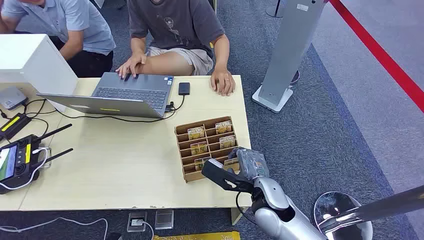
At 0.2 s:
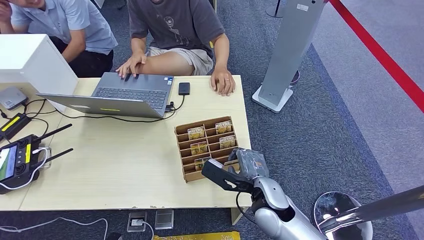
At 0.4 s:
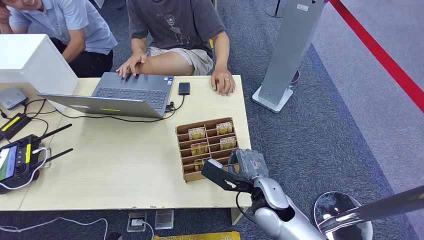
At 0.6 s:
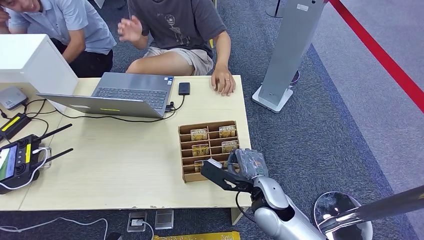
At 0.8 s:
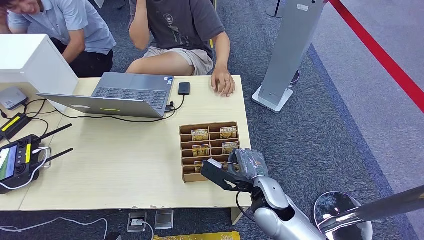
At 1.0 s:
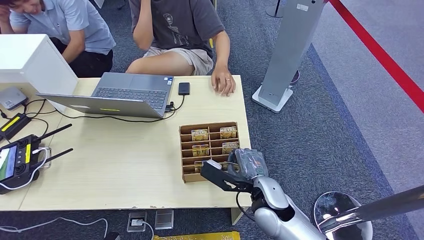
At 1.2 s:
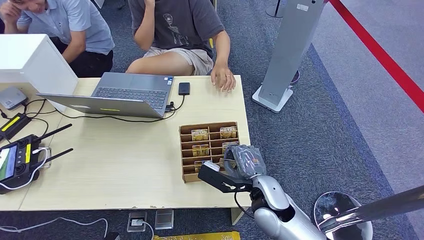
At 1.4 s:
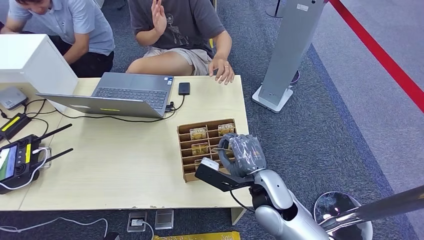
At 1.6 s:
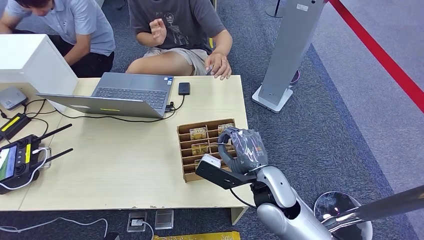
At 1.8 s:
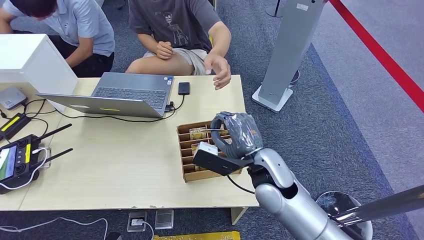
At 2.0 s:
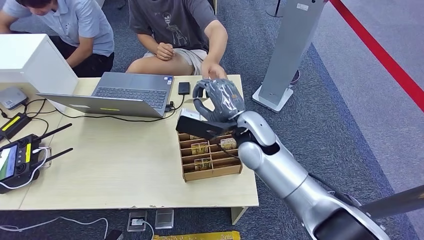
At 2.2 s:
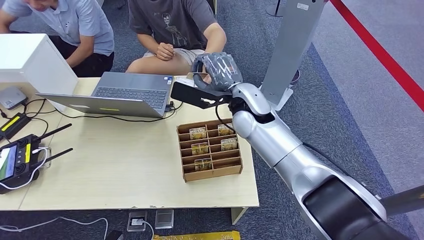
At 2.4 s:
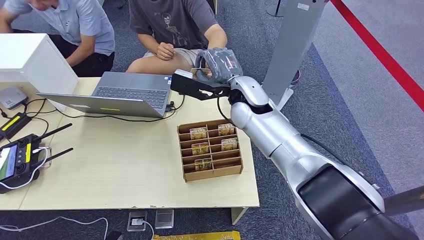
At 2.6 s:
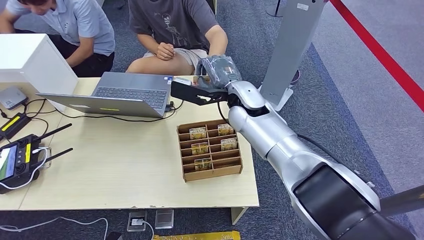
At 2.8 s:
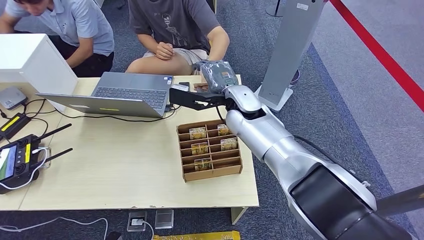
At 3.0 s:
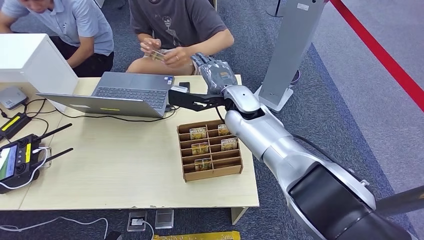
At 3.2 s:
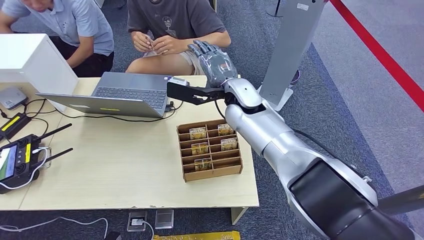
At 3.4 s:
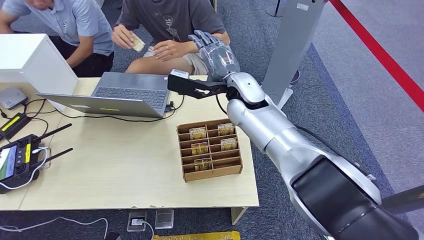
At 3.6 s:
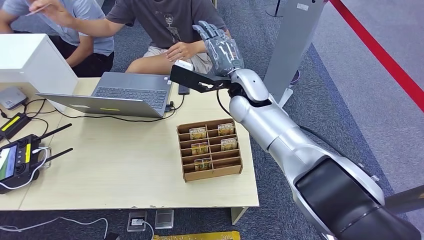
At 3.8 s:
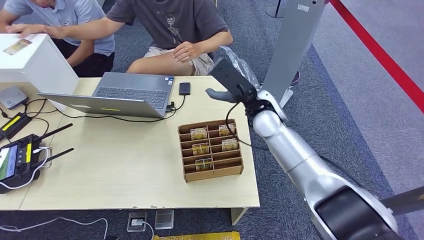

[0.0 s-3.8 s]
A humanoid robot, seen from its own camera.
Step, 0.0 to 1.4 s: Pick up the room card from the card holder.
Step, 2.0 to 3.8 s: Hand the room card to the target.
2.6 to 3.8 s: The right hand moves about 5 cm.
